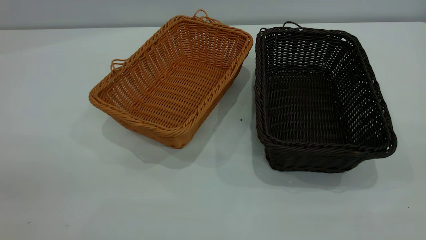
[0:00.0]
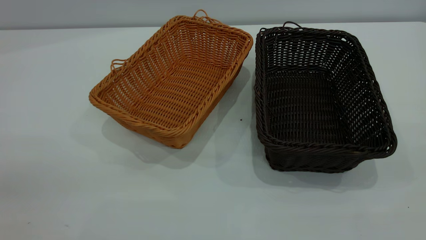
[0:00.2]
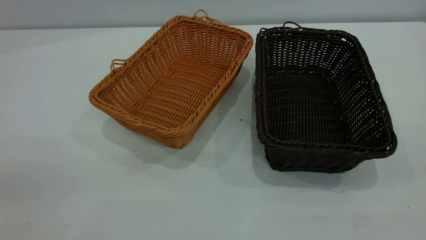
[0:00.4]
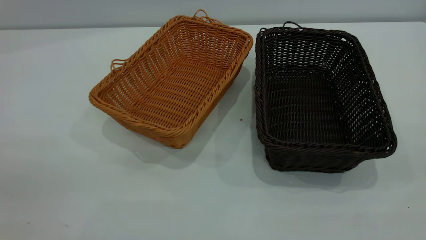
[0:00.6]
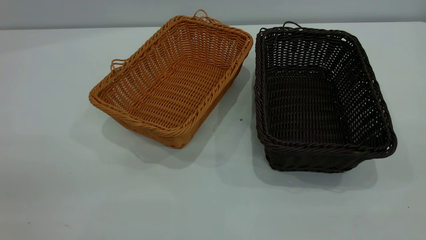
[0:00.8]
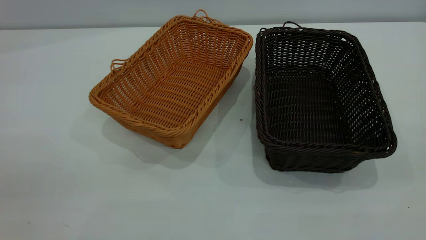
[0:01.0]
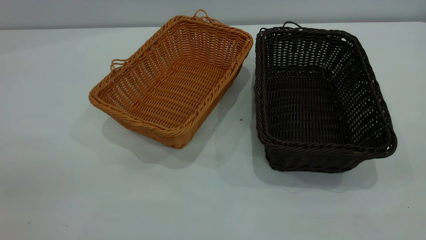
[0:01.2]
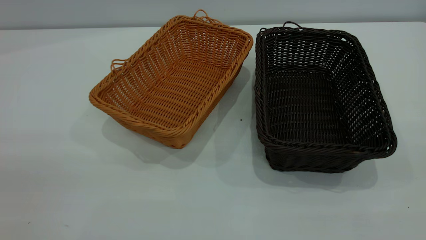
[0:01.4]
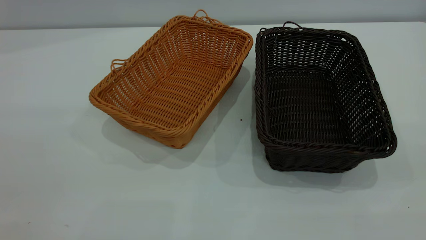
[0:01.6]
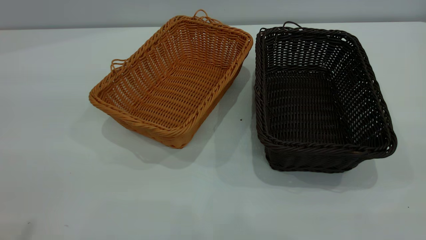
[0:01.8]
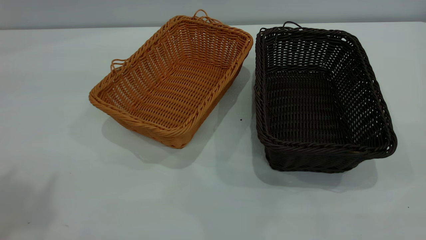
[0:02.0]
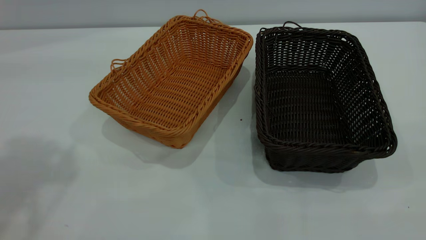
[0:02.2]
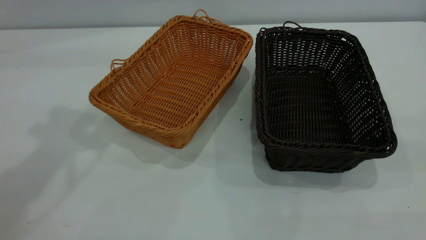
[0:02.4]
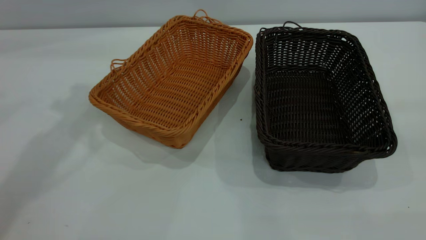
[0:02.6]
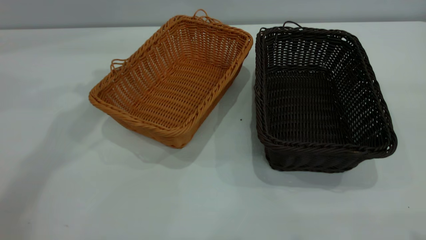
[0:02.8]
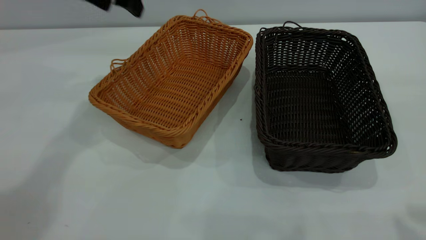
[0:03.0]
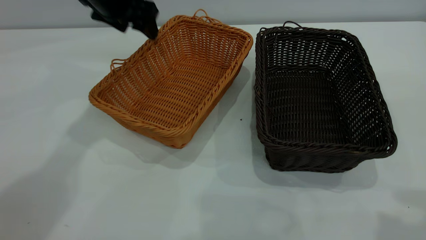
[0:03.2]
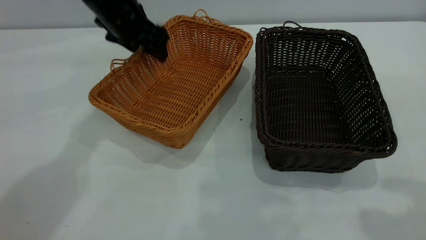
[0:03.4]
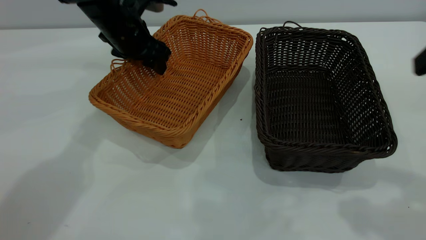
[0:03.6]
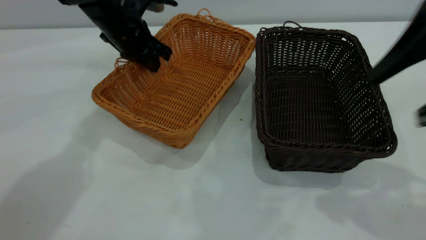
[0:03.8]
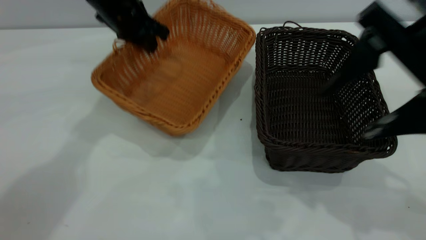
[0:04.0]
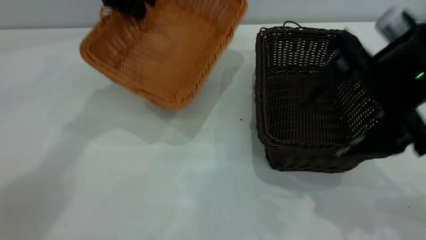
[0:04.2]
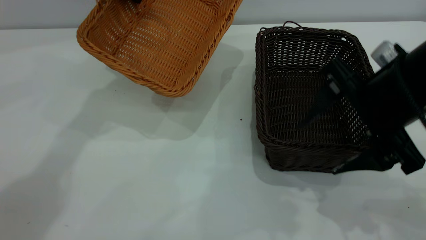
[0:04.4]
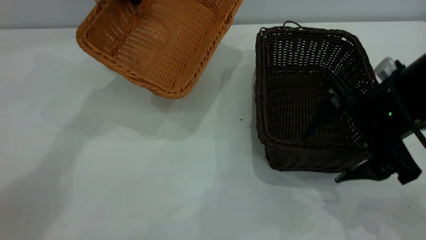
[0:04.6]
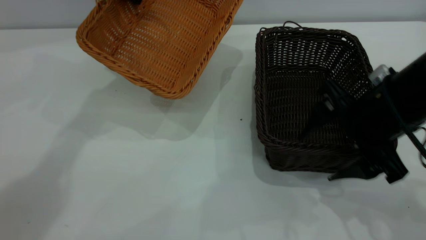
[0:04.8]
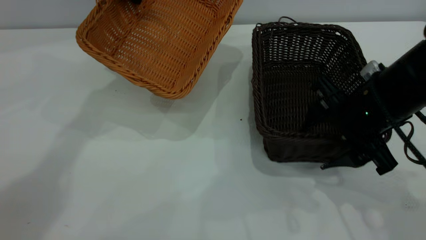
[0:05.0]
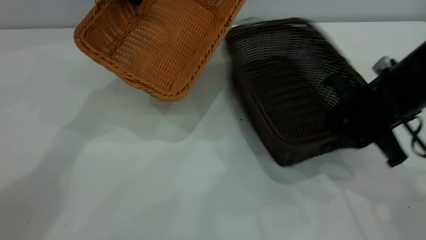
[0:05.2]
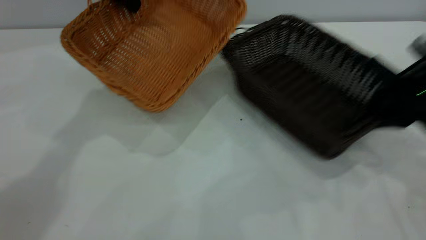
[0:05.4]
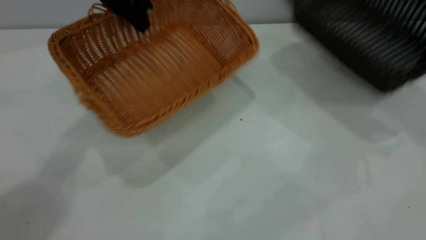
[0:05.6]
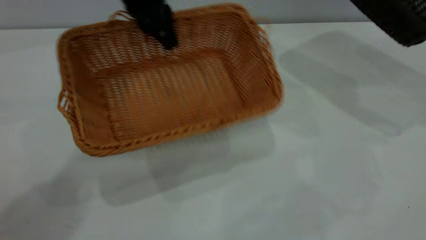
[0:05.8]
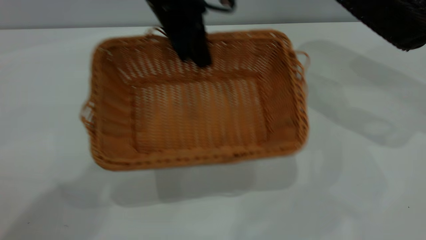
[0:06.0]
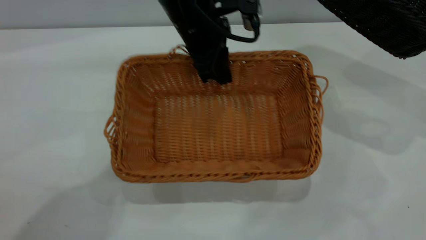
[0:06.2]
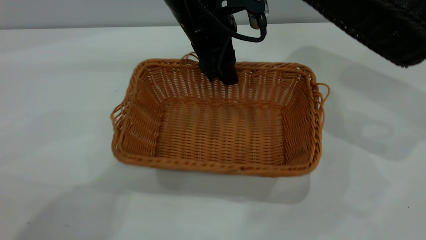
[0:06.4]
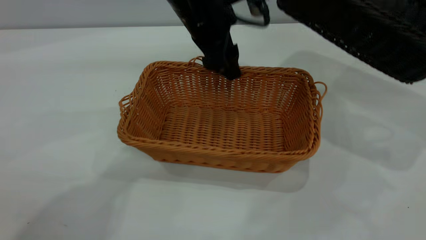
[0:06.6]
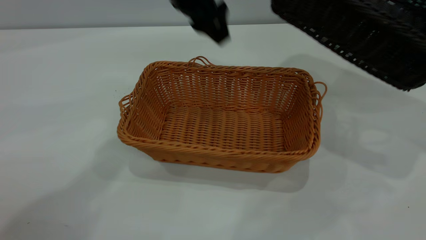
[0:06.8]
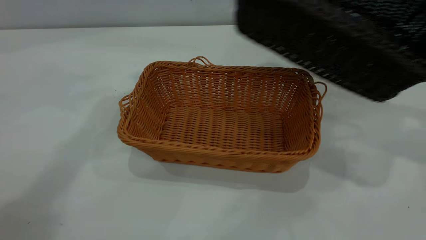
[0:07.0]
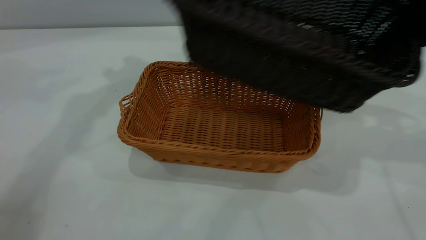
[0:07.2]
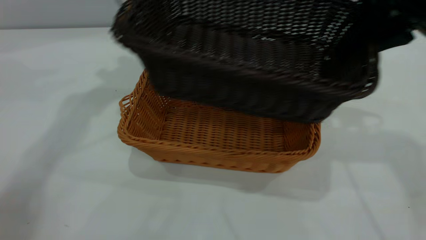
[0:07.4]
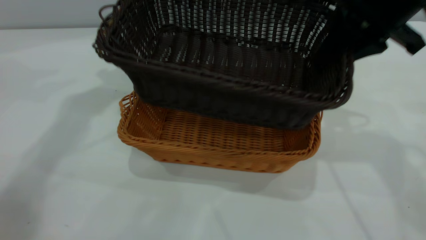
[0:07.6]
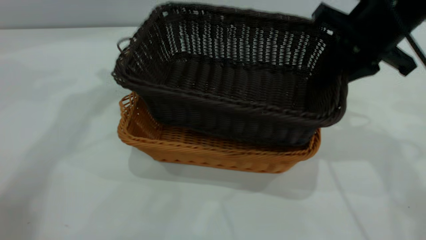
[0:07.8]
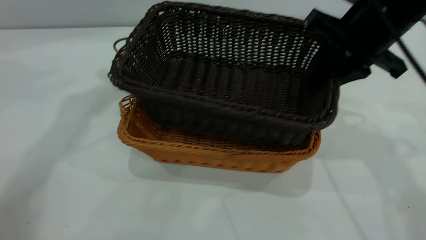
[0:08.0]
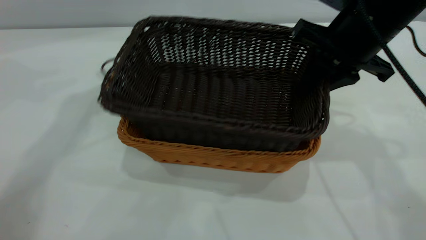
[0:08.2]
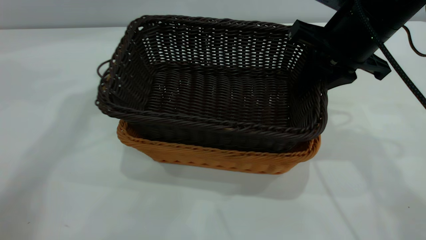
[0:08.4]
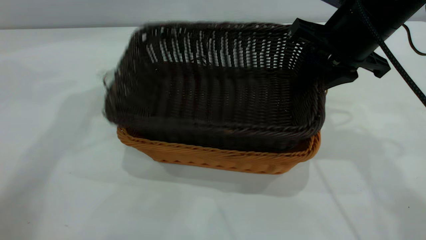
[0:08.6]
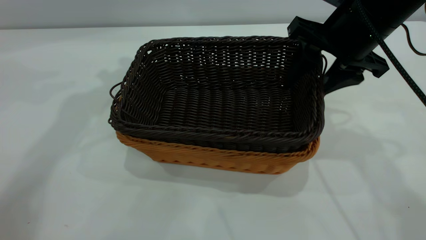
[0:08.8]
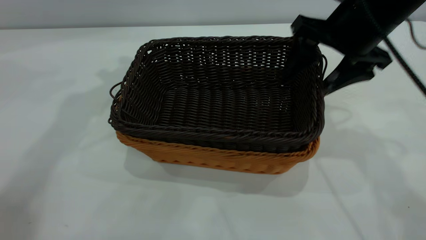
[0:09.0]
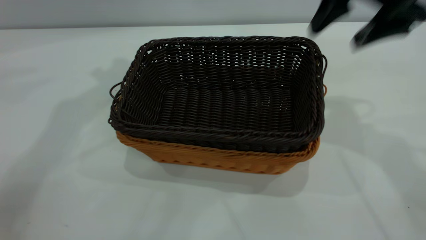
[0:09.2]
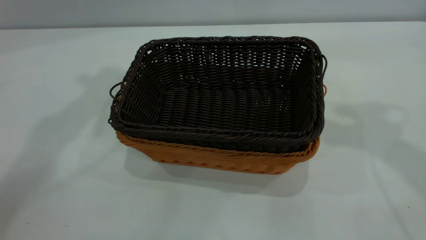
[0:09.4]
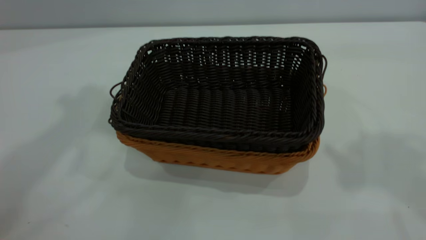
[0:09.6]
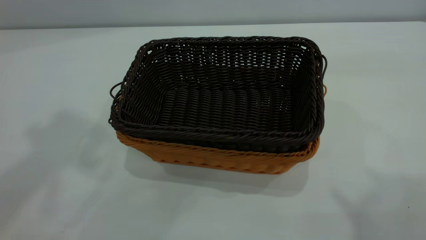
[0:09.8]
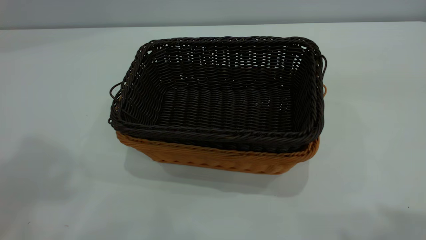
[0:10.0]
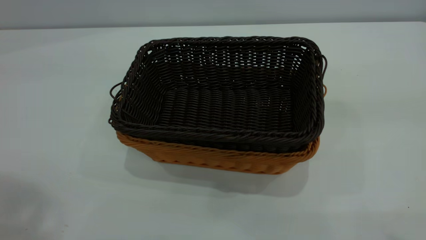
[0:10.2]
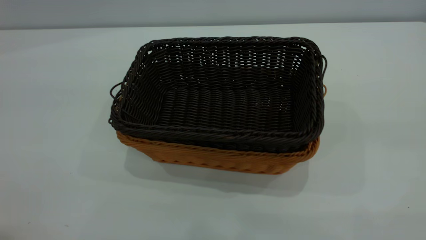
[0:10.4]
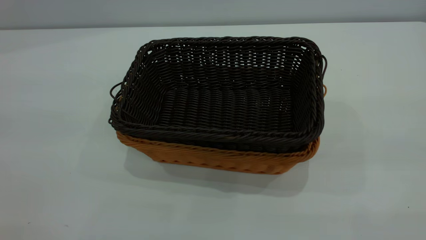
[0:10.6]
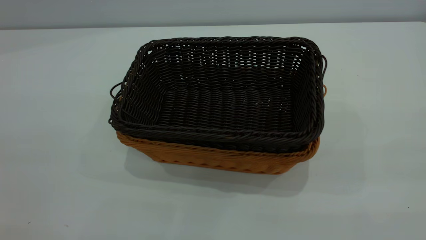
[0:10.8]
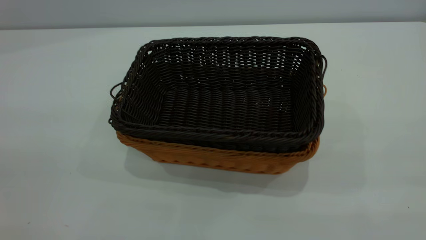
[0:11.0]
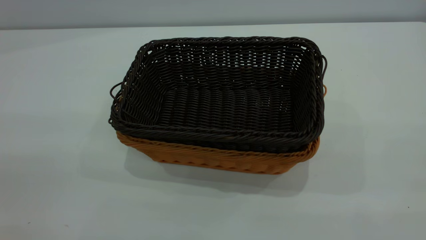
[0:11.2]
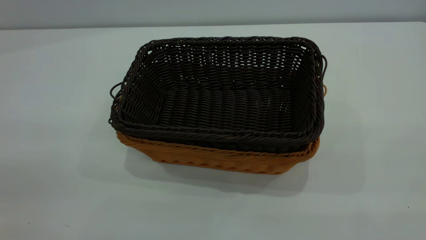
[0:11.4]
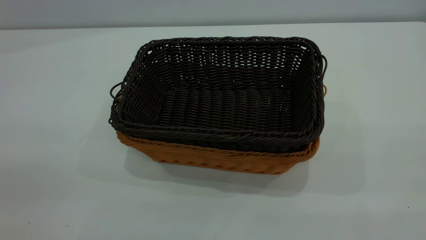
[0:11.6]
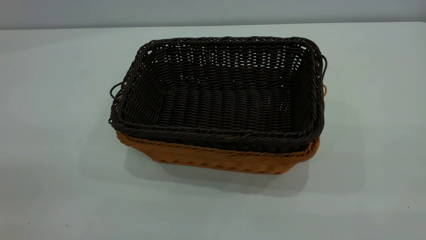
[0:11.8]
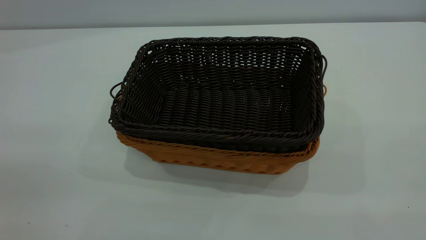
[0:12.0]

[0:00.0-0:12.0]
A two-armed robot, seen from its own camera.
Task of the whole recording: the left gripper grasp the brown basket and place it in the center of the table, the right gripper grasp the black basket and place it inside the brown one.
Step, 0:00.0 to 0:05.4: Pick up the light basket with the right gripper.
Step, 0:05.6 to 0:06.6: Place the light-colored basket in the center.
Step, 0:06.8 to 0:09.0: Place the dark basket on top of the light basket.
0:01.6 to 0:03.0: The left gripper is displaced forward and downward by roughly 50 cm.
0:03.0 to 0:04.4: The right gripper travels downward, forward and to the left by roughly 25 cm, while the left gripper goes downward and returns, about 10 cm each way, and closes.
0:04.4 to 0:06.0: The left gripper travels to the right and backward by roughly 15 cm, while the right gripper goes approximately 25 cm to the right, upward and forward, and closes its fingers.
0:06.0 to 0:07.6: The right gripper shifts roughly 20 cm to the left; the left gripper is displaced to the left and upward by about 20 cm, and opens its fingers.
0:07.6 to 0:09.0: The right gripper opens up.
0:09.0 to 0:10.4: Both grippers move backward and upward, about 40 cm.

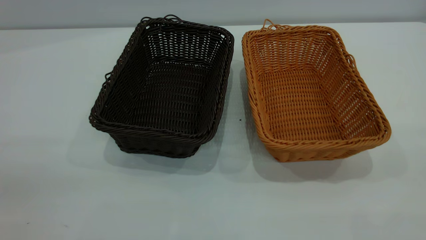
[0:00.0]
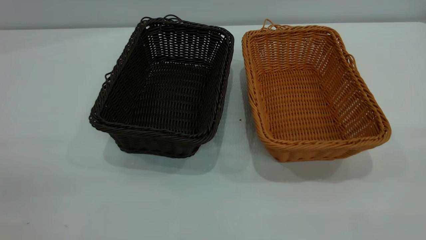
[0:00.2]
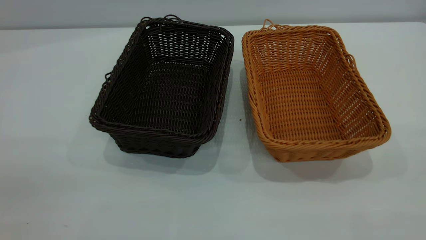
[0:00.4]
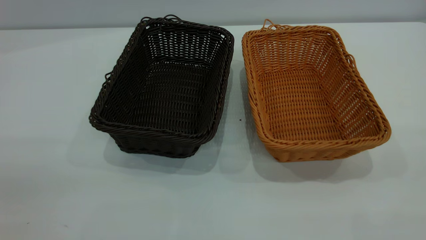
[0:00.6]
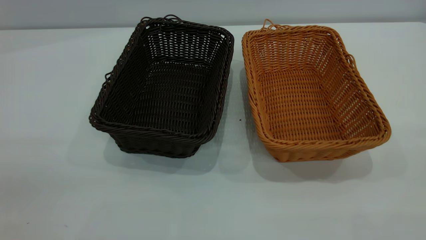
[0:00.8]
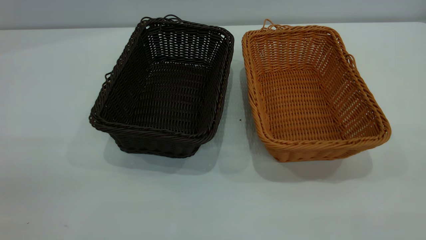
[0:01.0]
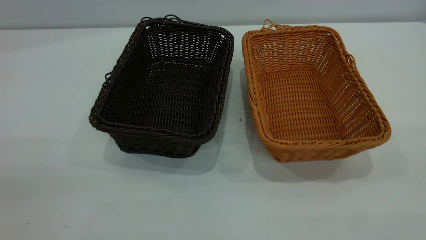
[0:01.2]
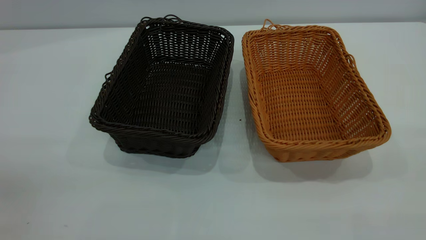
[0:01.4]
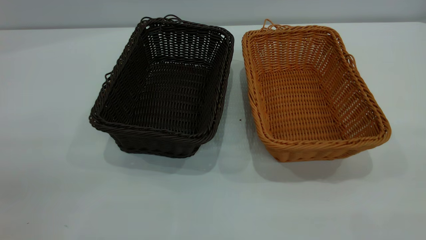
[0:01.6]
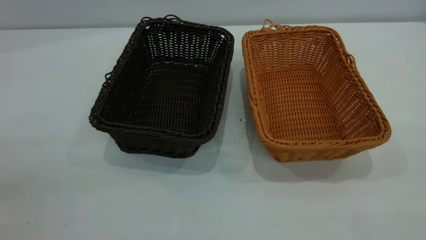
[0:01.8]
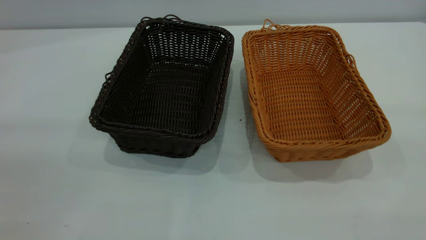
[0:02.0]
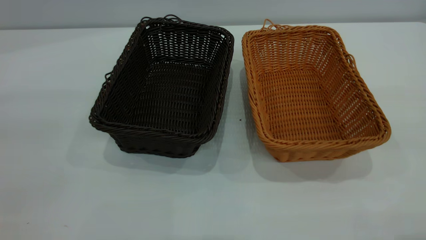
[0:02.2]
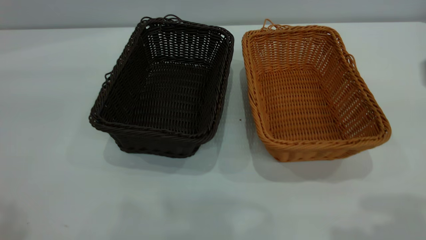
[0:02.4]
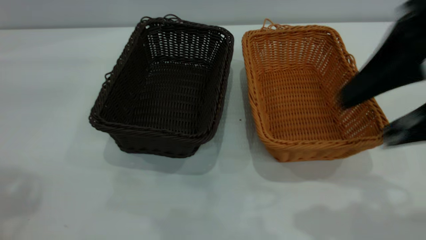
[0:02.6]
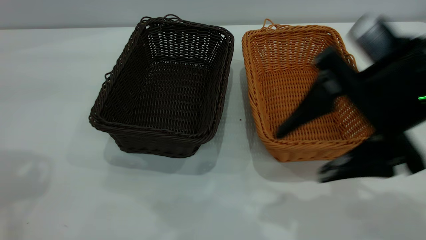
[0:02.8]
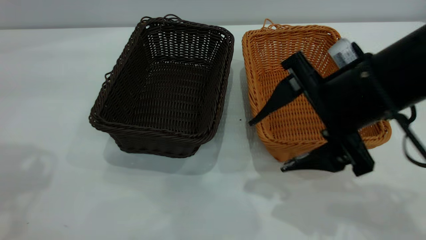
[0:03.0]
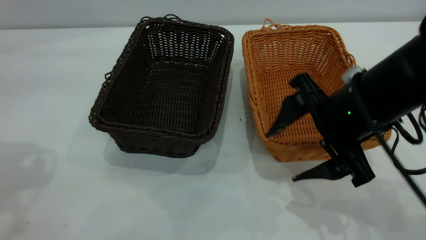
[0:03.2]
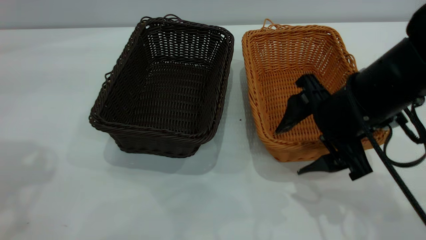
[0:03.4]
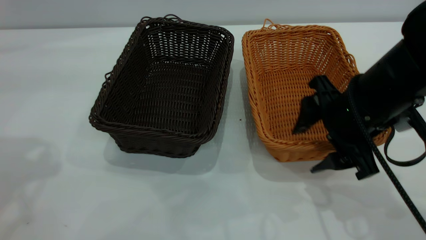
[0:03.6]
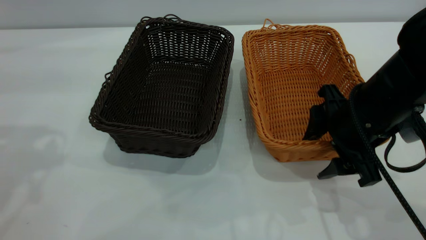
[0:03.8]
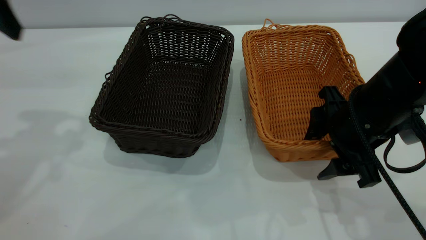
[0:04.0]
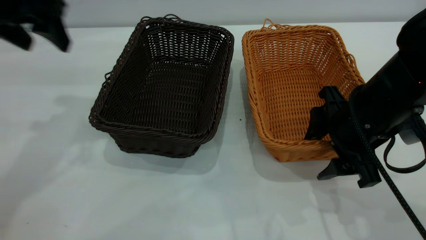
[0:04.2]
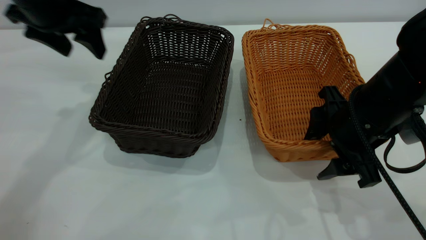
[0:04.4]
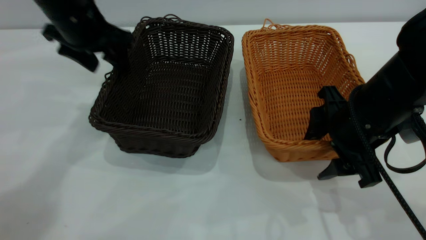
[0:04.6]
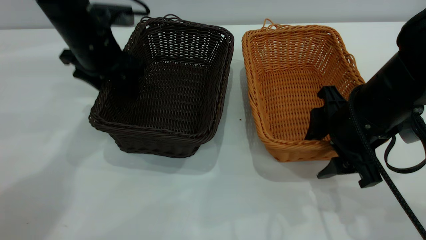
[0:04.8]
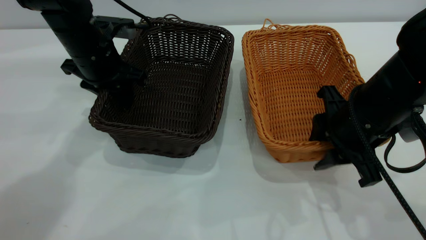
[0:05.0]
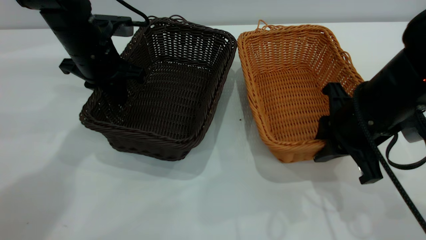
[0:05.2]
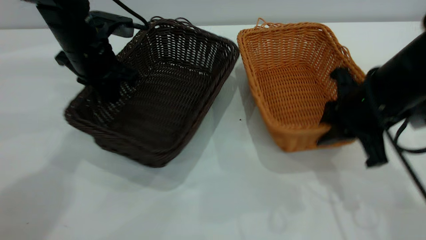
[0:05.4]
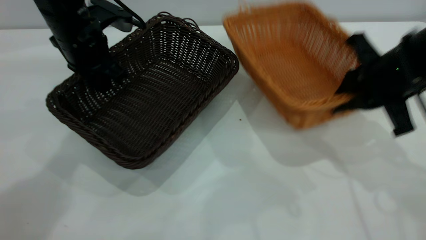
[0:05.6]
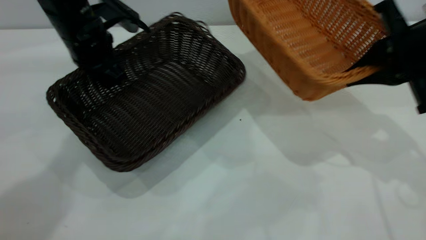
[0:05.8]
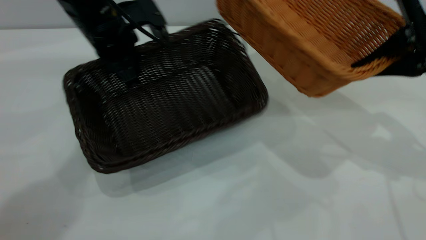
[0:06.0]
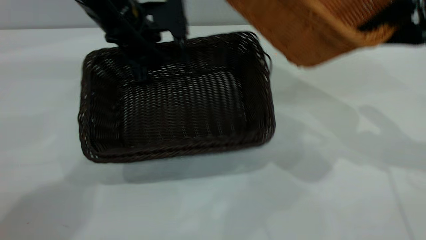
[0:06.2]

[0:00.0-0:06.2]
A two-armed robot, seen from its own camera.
Task of the whole recording: the left gripper grasp the black basket and place it in the center of the table, the right gripper grasp the brown basket and place it inside the black one.
Step, 0:00.0 to 0:05.4: Pick up the light basket with the right gripper.
0:00.0 to 0:01.6: Both grippers stay about where they are.
0:01.6 to 0:03.2: The right gripper is displaced forward, downward and to the left by some 35 cm.
0:03.2 to 0:04.6: The left gripper heads downward, forward and to the right, covering about 25 cm.
0:04.6 to 0:06.2: The right gripper is displaced upward, to the right and forward by about 15 cm, and closes its fingers. Meanwhile the left gripper travels to the right by about 5 cm, and closes.
